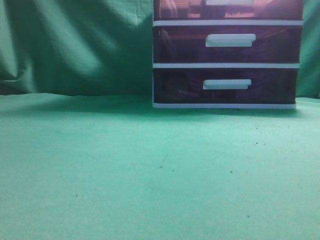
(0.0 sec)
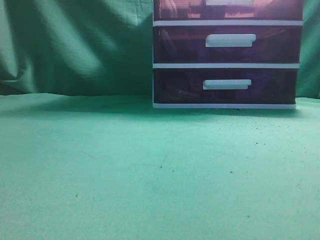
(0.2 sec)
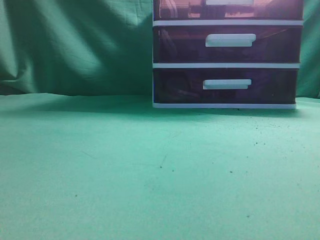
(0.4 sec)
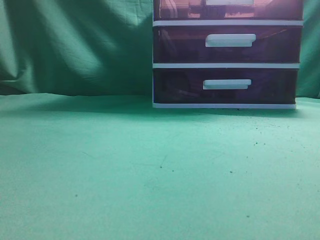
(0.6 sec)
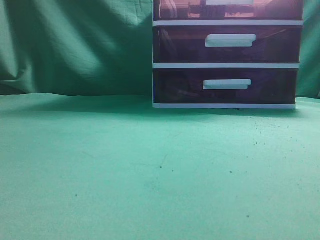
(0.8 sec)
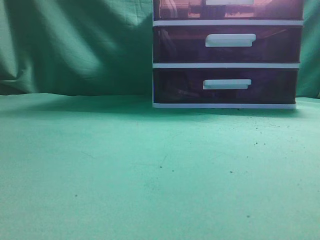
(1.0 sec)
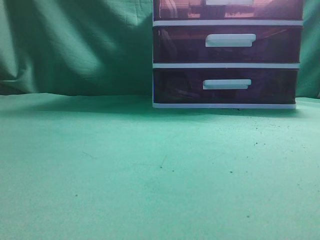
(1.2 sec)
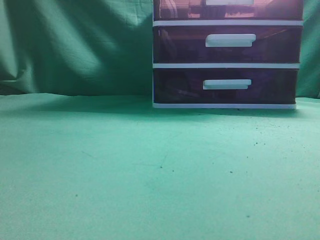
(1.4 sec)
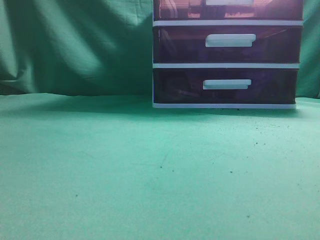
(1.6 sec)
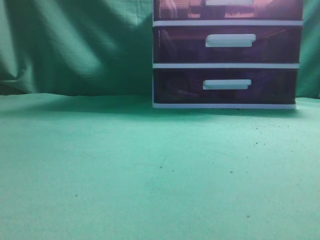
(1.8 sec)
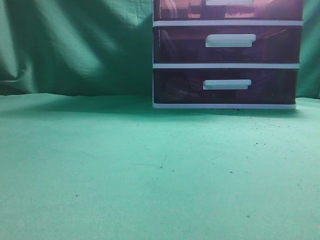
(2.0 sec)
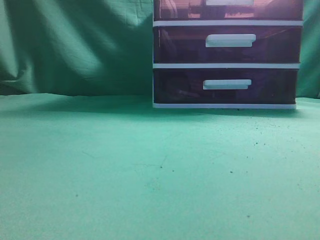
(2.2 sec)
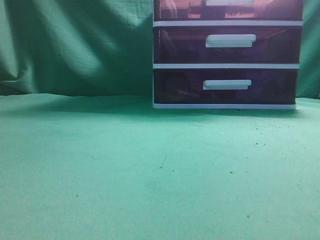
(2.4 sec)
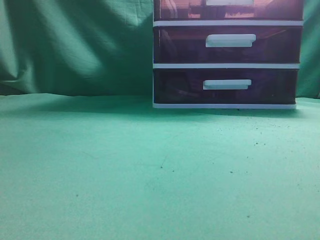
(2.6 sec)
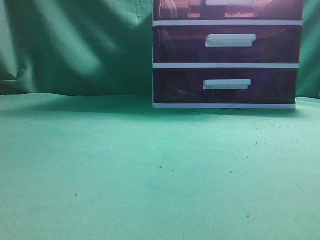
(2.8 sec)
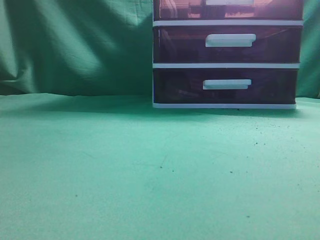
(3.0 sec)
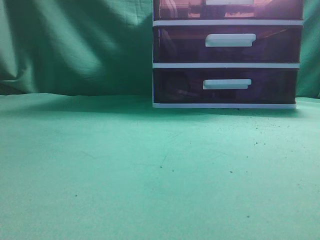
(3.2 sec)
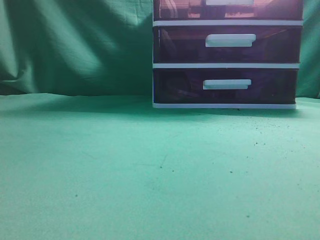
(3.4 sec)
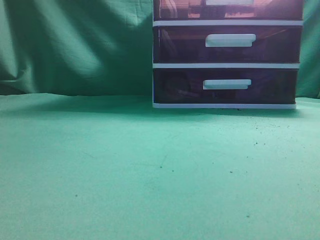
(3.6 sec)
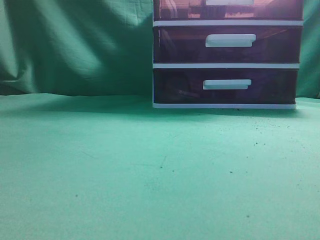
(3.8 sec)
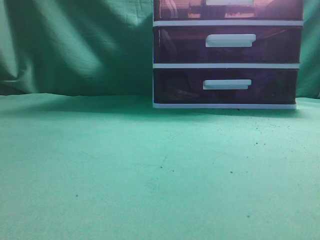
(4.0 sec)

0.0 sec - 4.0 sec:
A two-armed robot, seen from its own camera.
Task of the whole recording: place the water bottle into the drawer.
2.6 sec - 4.0 sec: Neither gripper changes place.
